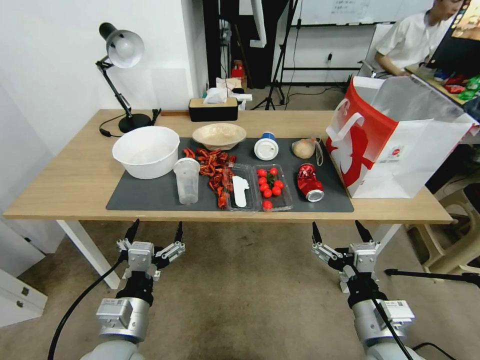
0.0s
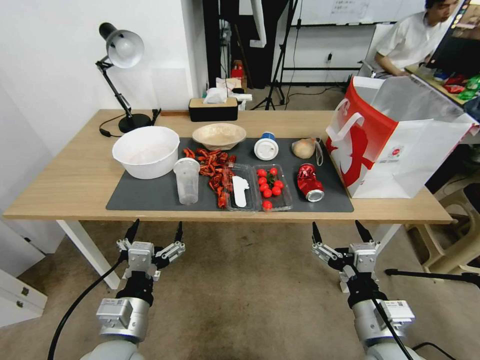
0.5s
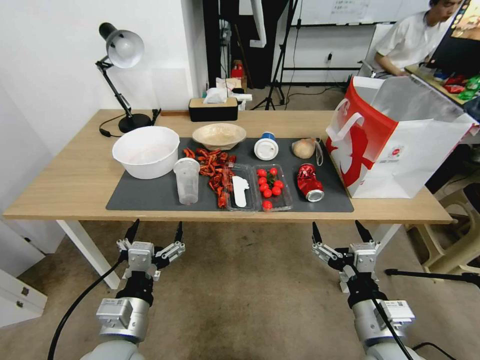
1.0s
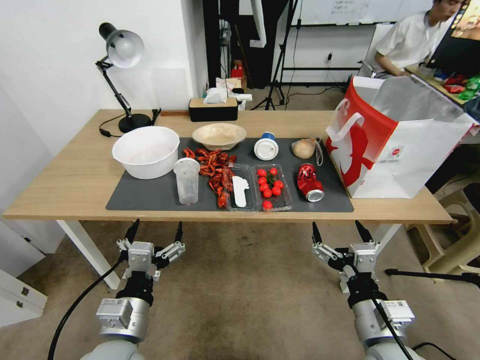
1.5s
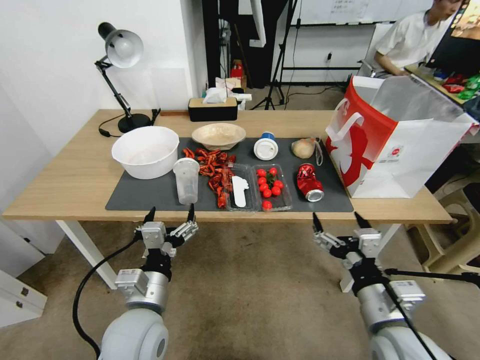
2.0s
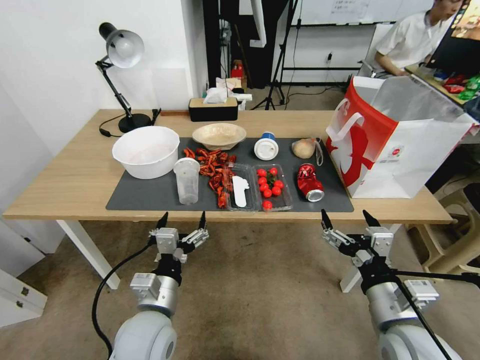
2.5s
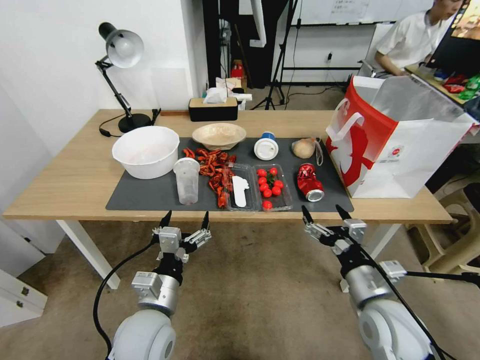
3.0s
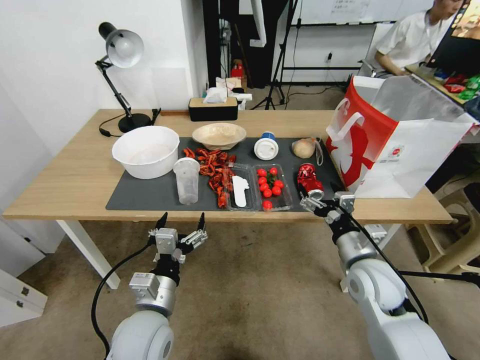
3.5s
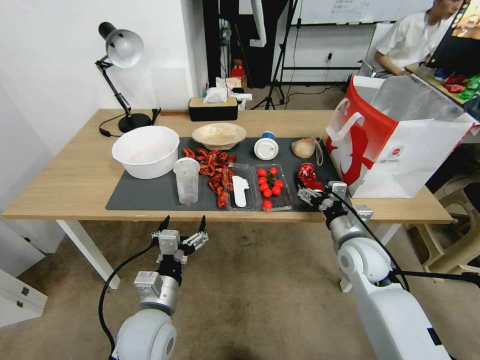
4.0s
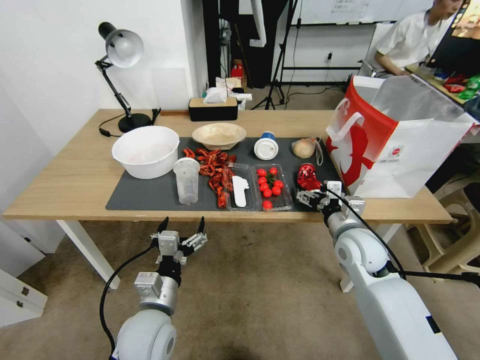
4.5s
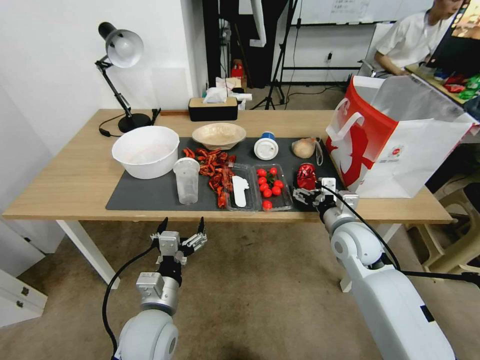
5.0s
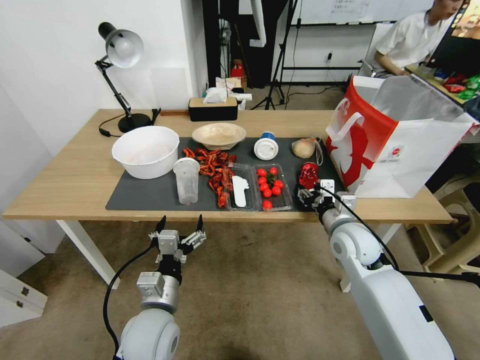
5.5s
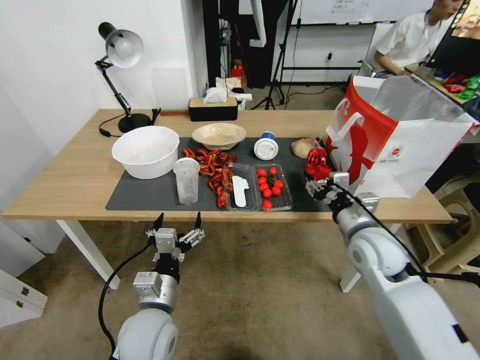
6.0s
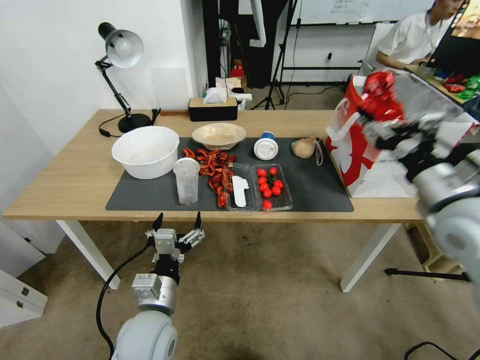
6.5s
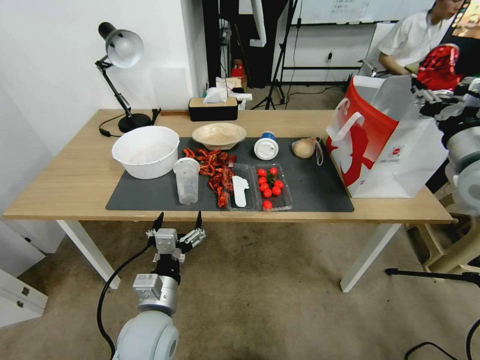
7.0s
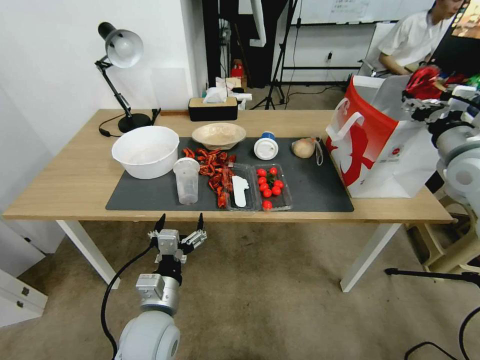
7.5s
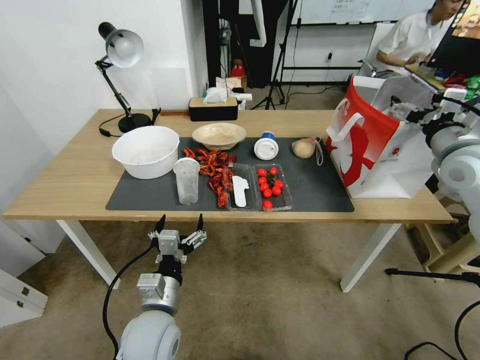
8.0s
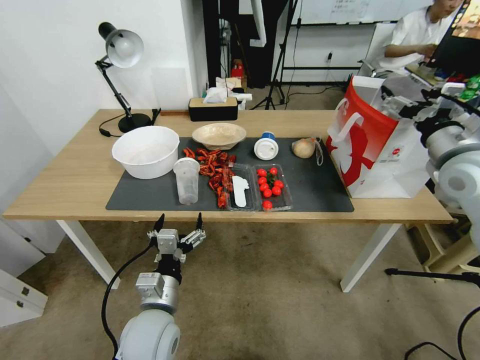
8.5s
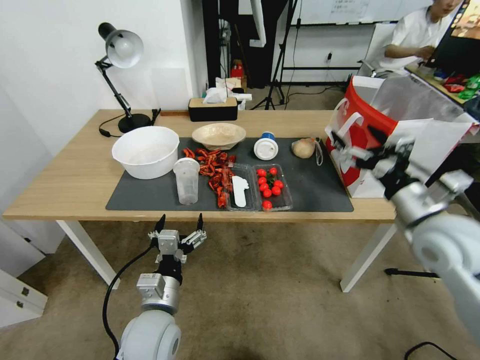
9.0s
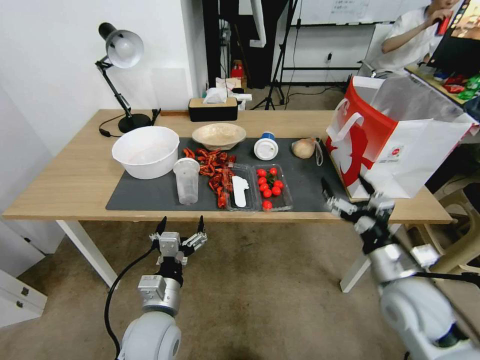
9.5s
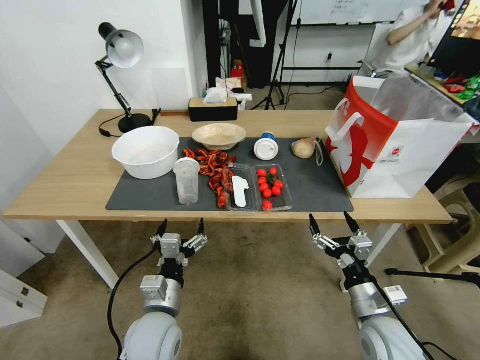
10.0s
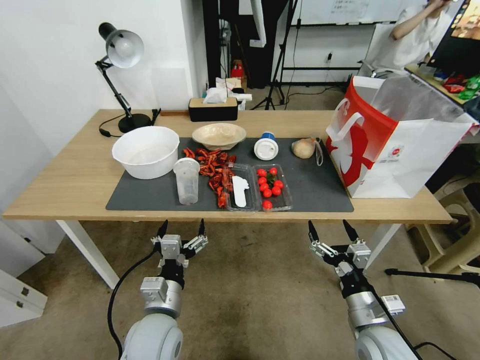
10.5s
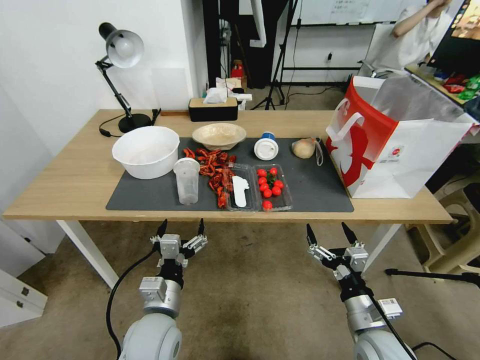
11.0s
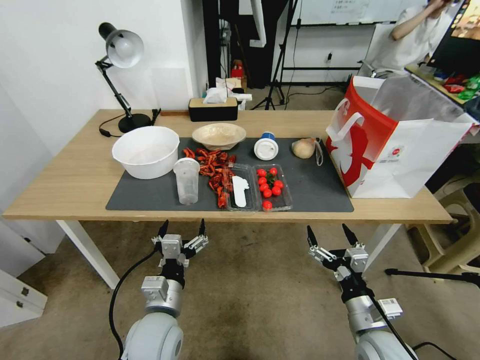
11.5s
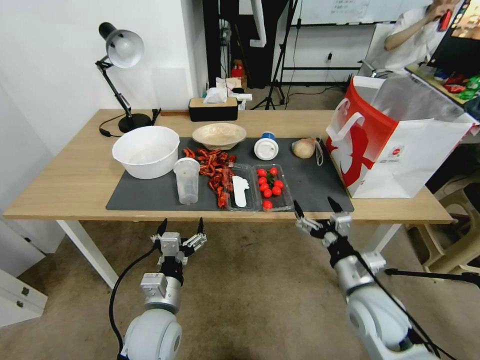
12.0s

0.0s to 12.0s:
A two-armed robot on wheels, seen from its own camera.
2.0s to 4.0s: The right gripper goes about 20 cm forward.
4.0s to 6.0s: The right gripper moves upward, some 5 cm, and closes up.
6.0s to 8.0s: The right gripper shifts roughly 20 cm upward, to the right and forward, and opens up.
8.0s to 10.0s: The right gripper shifts approximately 35 cm downward, backward and to the left.
10.0s to 12.0s: The right gripper ends up some 5 cm from where it was.

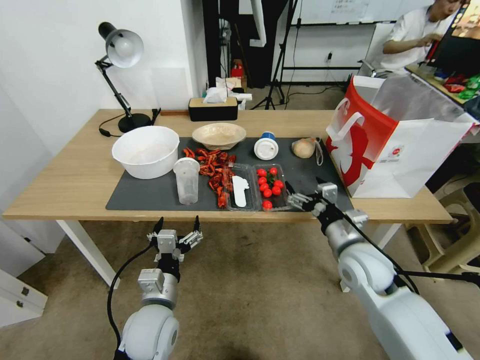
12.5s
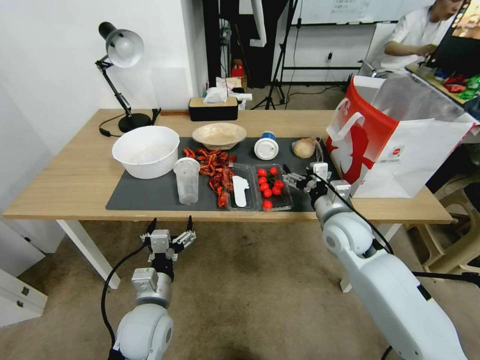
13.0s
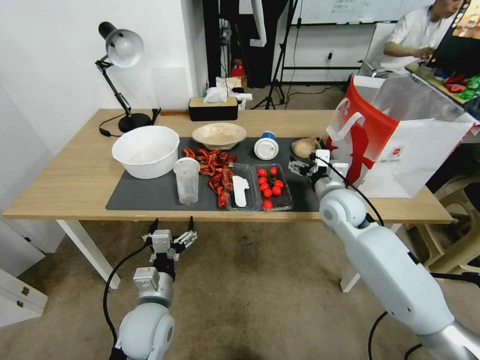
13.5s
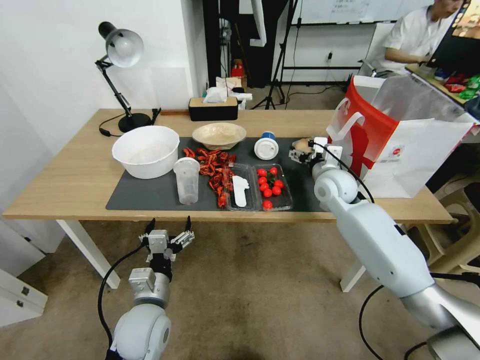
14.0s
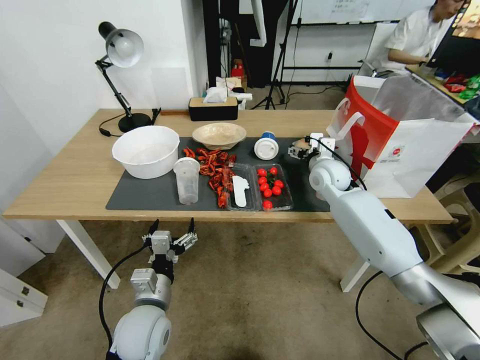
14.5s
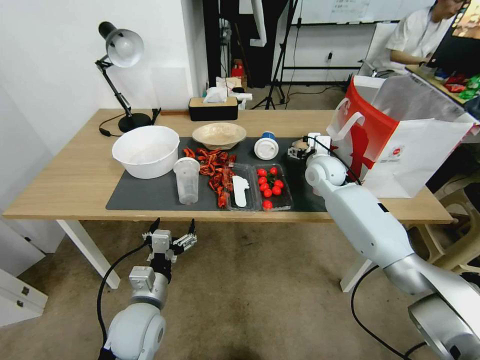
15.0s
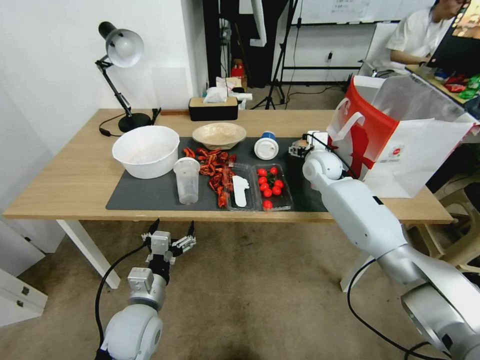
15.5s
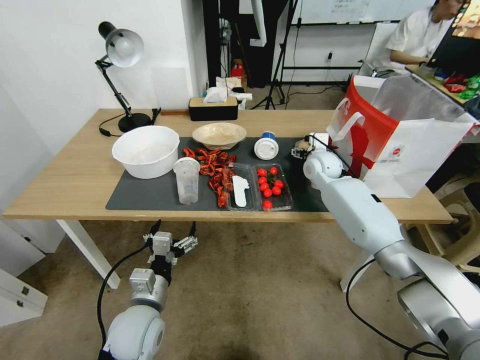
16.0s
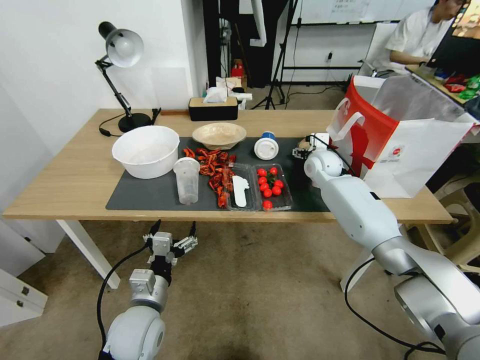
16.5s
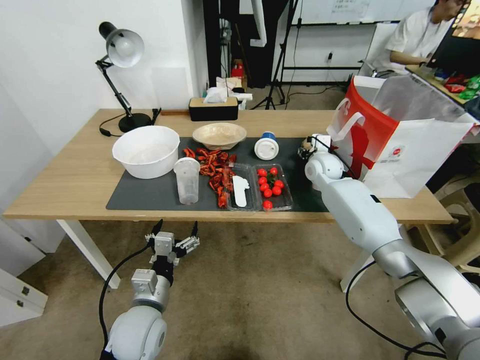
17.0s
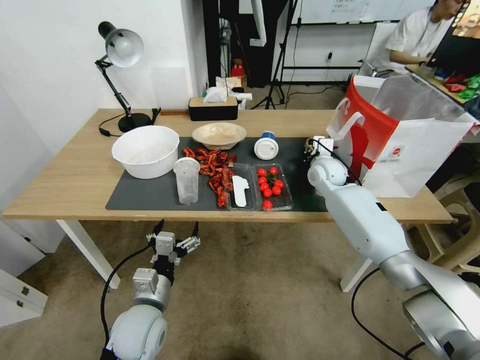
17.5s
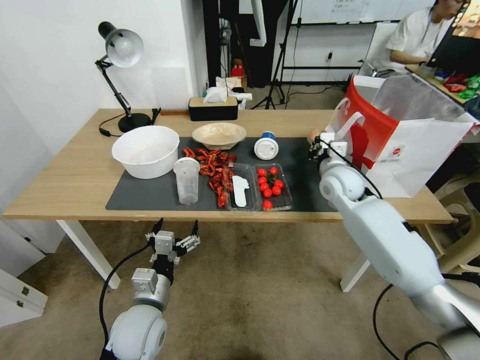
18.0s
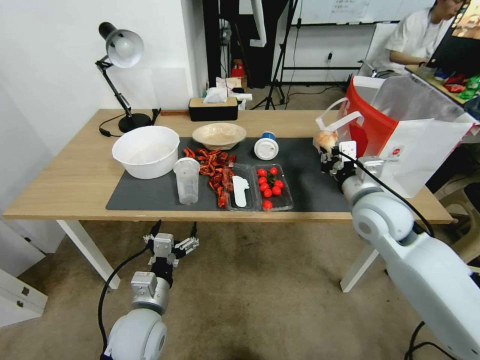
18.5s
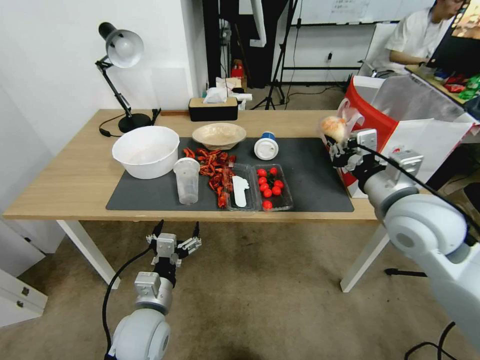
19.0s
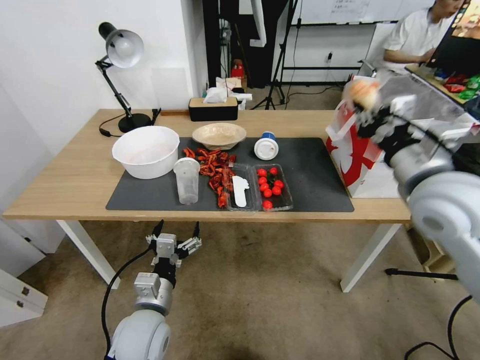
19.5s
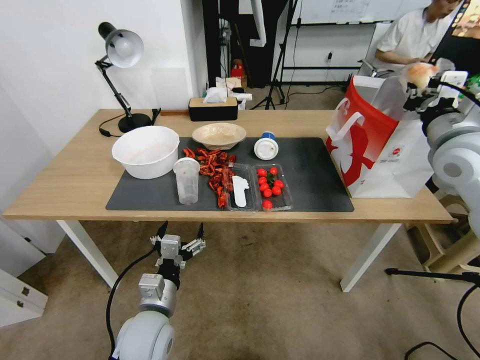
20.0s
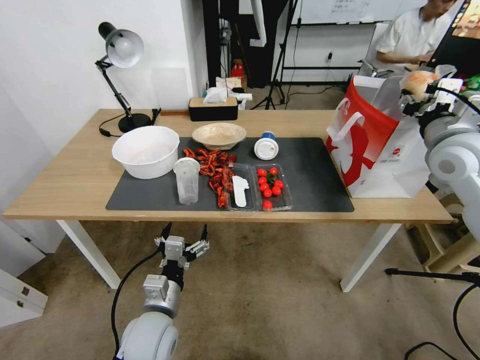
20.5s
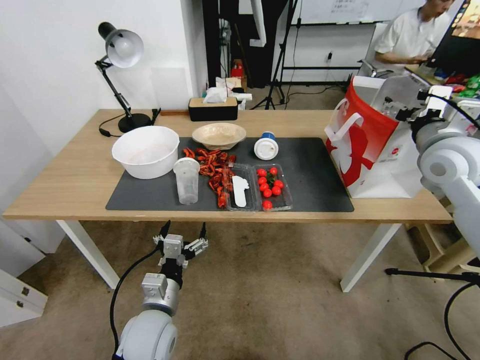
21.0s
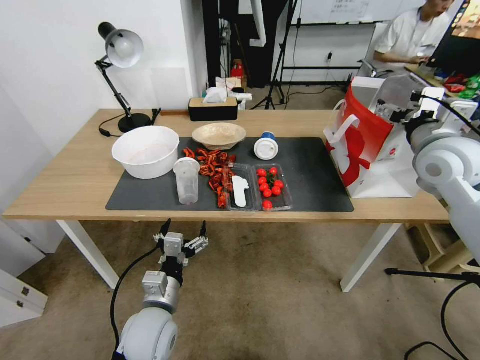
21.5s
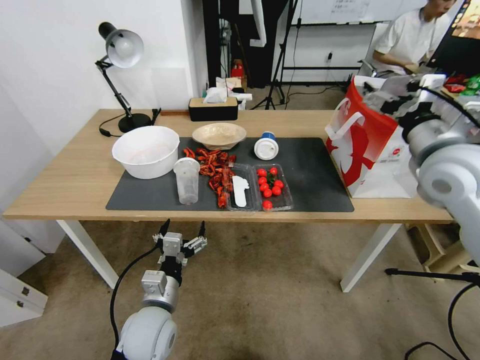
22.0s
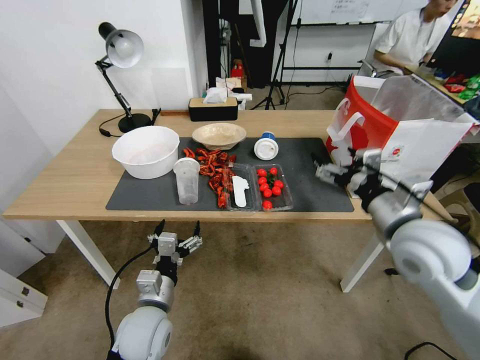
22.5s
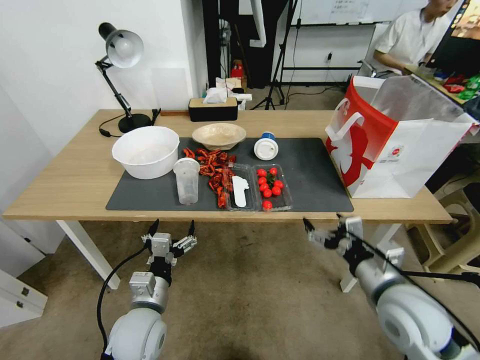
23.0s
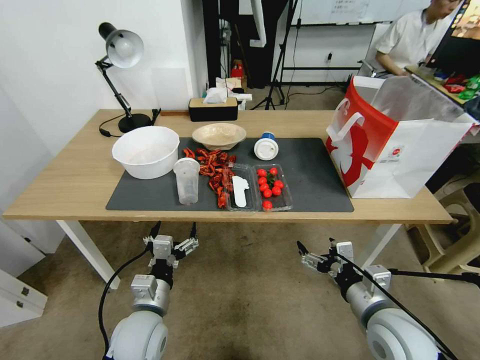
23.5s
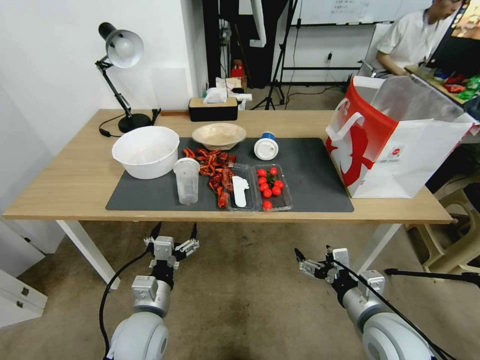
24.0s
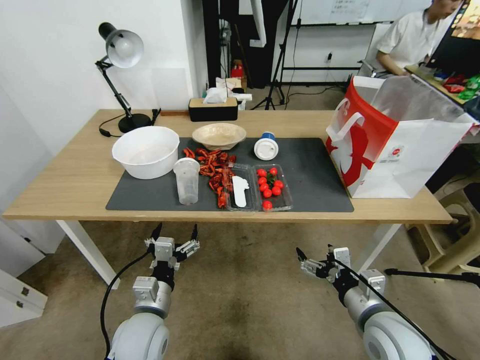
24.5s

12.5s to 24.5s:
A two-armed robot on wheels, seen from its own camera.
12.5s to 14.5s: The right gripper moves forward, roughly 20 cm.
14.5s to 16.5s: The right gripper moves forward, roughly 5 cm.
16.5s to 18.5s: The right gripper shifts roughly 20 cm backward, and closes its fingers.
18.5s to 20.5s: The right gripper goes roughly 15 cm to the right and upward, and opens up.
20.5s to 22.5s: The right gripper heads backward, to the left and downward, covering approximately 15 cm, and opens.
22.5s to 24.5s: The right gripper moves downward and backward, some 20 cm.

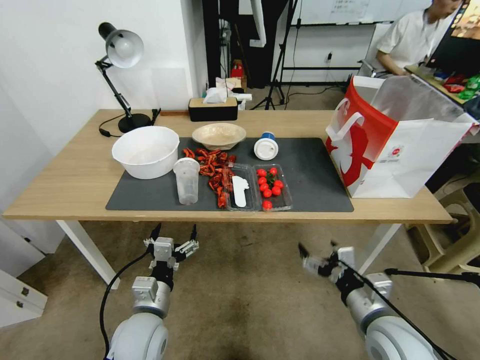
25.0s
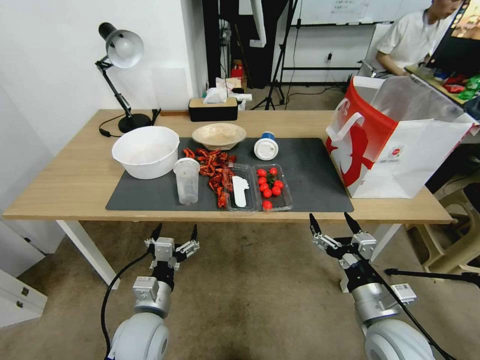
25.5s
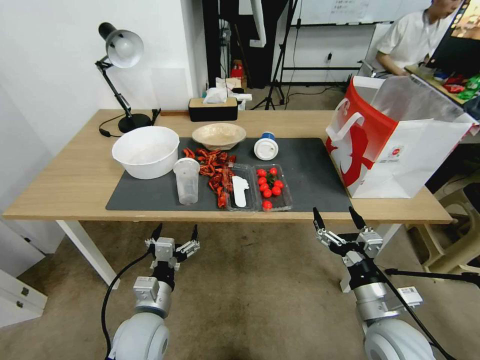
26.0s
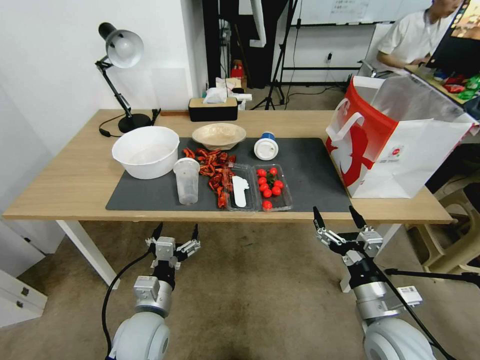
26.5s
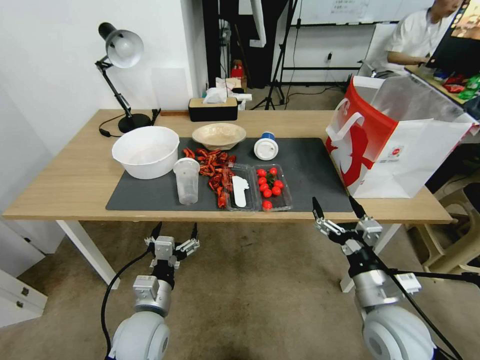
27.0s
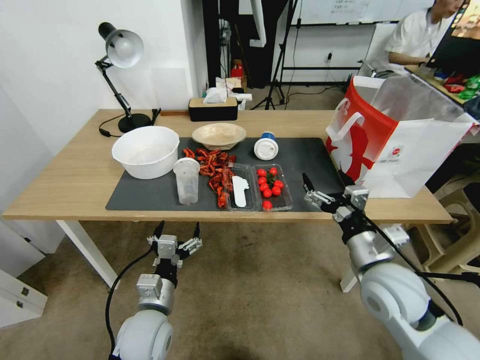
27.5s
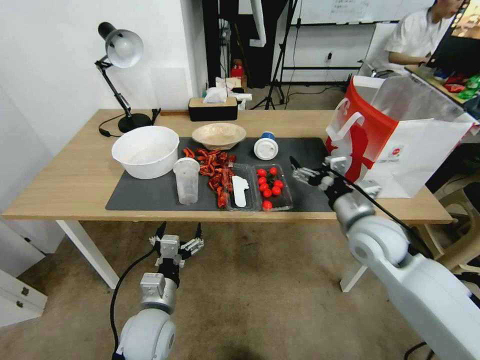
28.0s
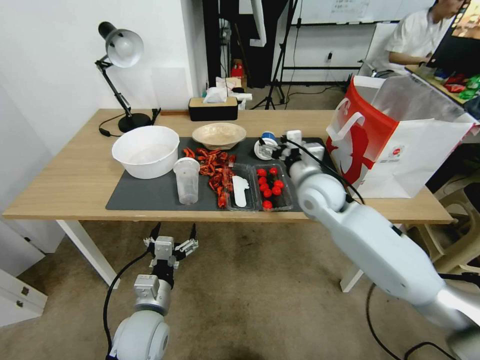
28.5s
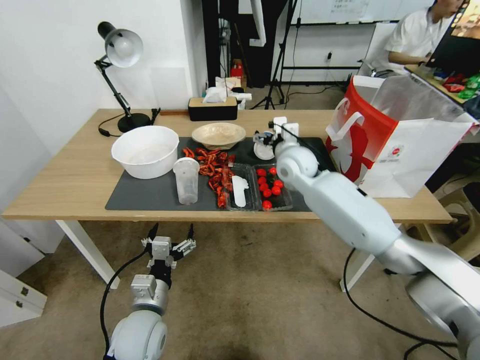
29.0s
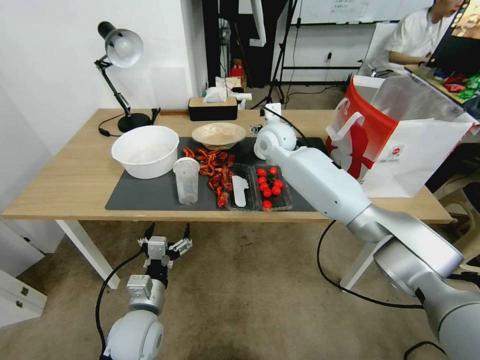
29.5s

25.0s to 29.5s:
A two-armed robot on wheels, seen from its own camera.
27.0s to 29.5s: The right gripper travels forward, to the left and upward by some 40 cm.
